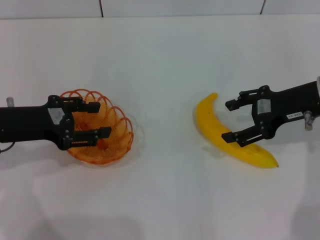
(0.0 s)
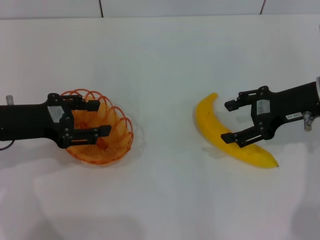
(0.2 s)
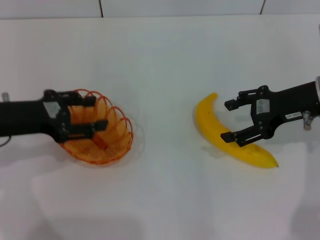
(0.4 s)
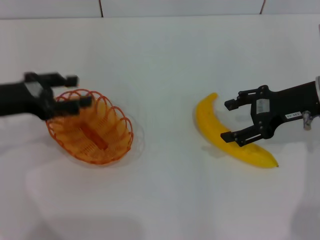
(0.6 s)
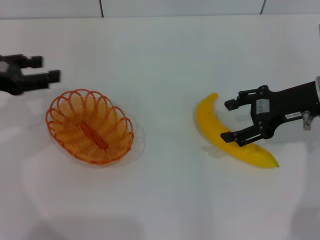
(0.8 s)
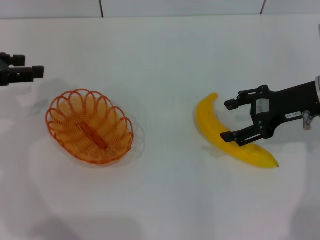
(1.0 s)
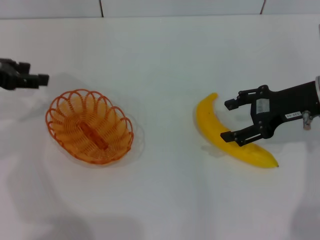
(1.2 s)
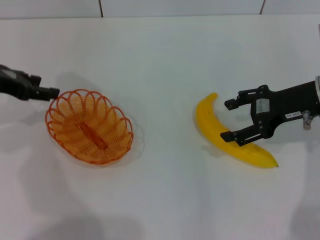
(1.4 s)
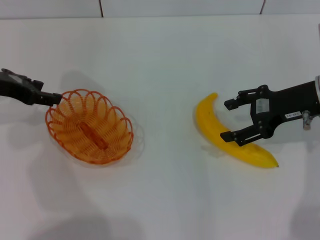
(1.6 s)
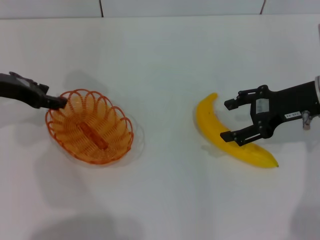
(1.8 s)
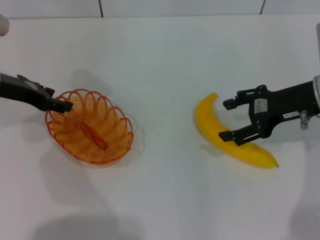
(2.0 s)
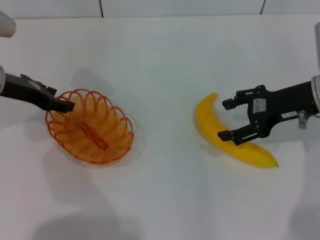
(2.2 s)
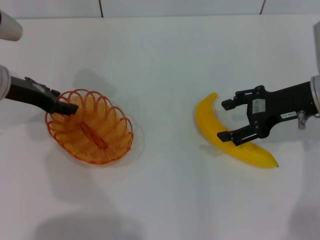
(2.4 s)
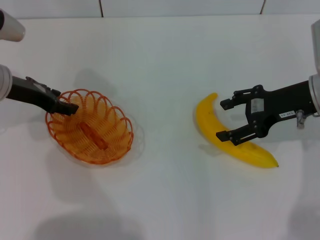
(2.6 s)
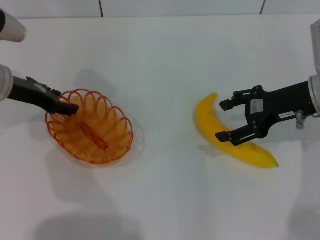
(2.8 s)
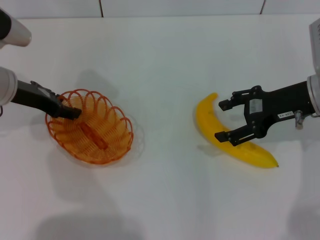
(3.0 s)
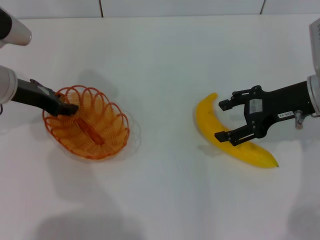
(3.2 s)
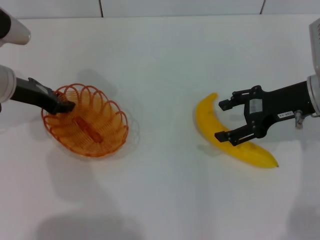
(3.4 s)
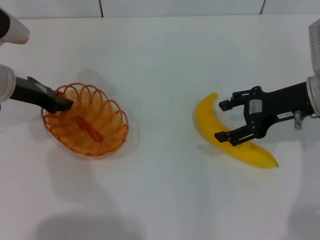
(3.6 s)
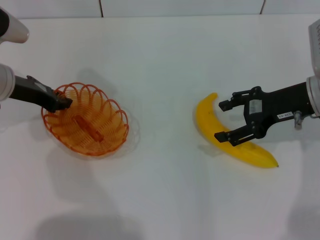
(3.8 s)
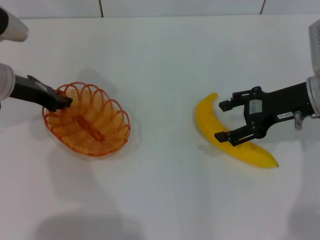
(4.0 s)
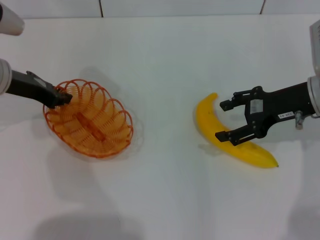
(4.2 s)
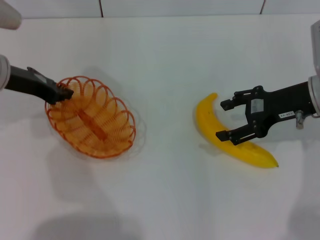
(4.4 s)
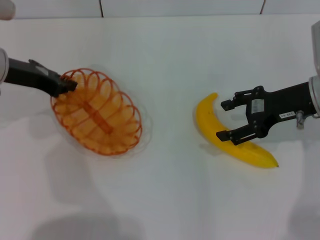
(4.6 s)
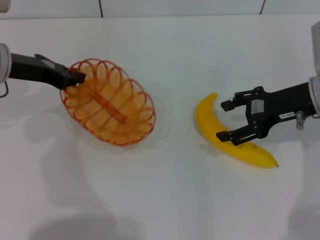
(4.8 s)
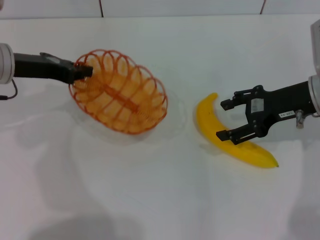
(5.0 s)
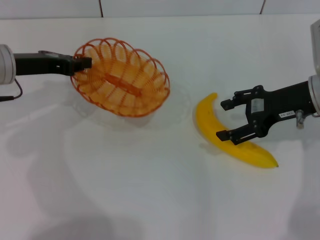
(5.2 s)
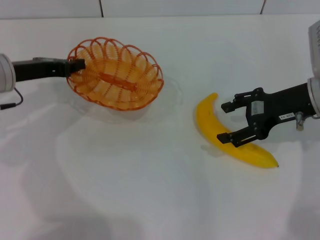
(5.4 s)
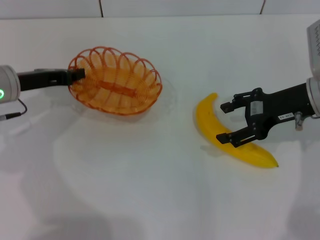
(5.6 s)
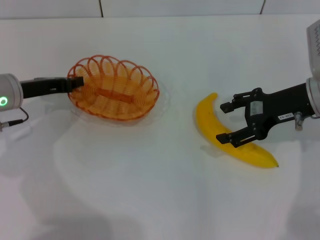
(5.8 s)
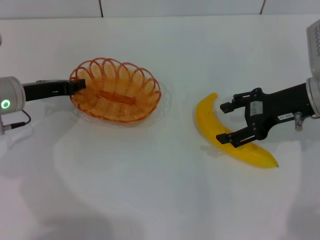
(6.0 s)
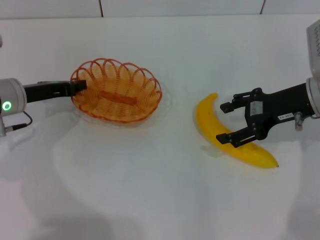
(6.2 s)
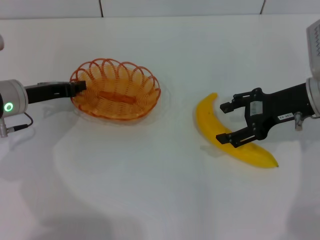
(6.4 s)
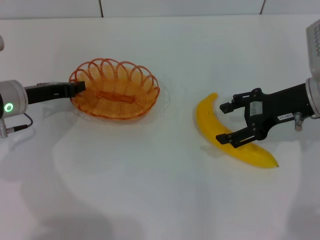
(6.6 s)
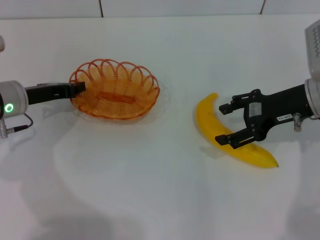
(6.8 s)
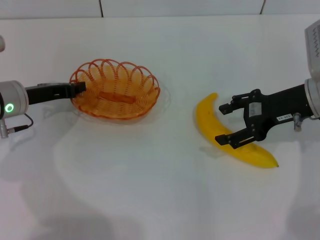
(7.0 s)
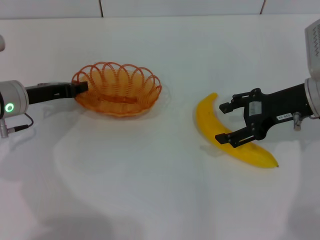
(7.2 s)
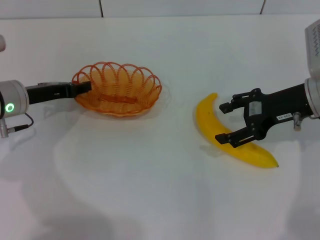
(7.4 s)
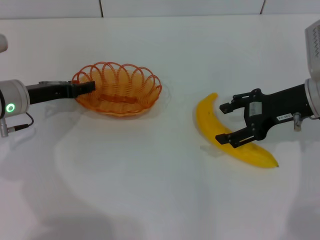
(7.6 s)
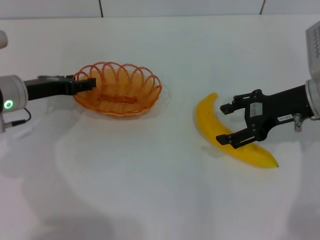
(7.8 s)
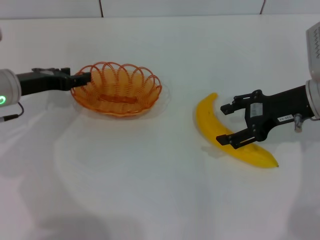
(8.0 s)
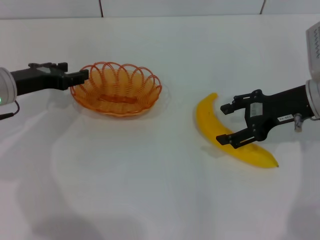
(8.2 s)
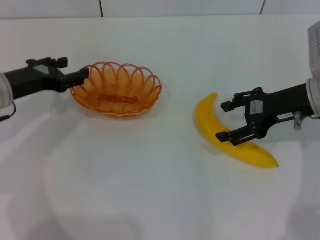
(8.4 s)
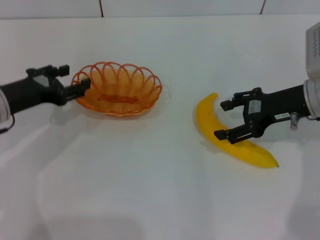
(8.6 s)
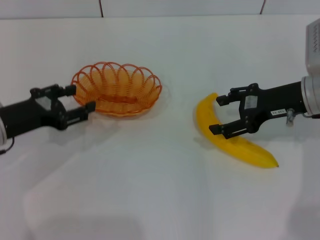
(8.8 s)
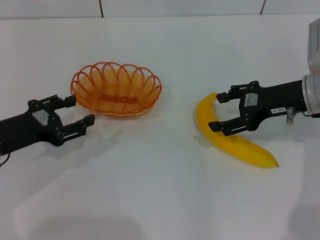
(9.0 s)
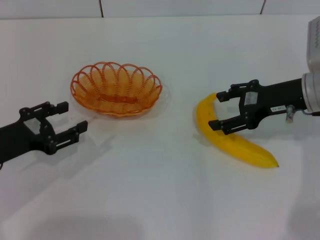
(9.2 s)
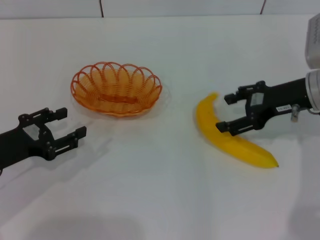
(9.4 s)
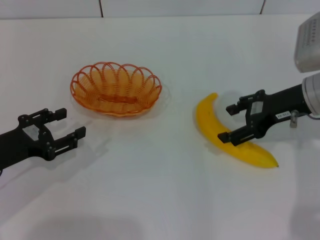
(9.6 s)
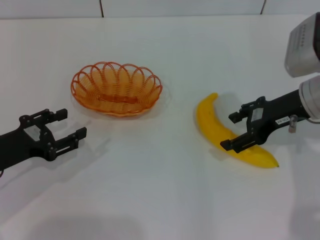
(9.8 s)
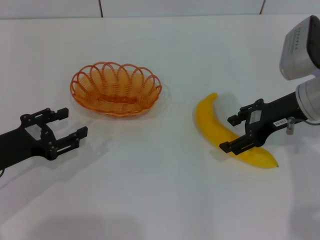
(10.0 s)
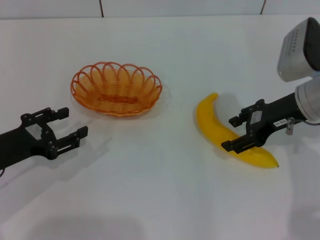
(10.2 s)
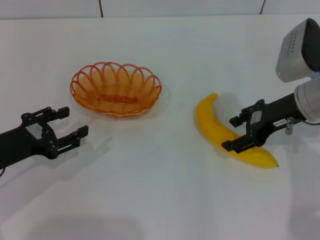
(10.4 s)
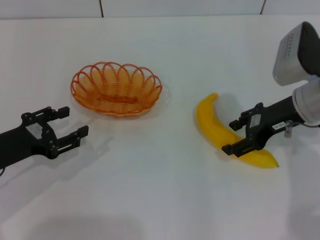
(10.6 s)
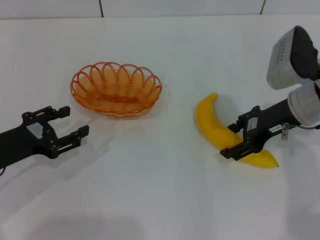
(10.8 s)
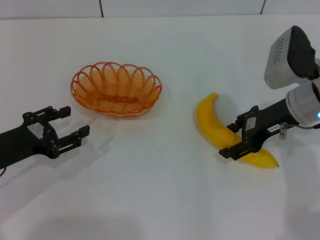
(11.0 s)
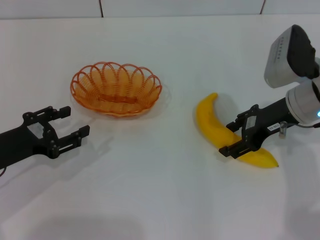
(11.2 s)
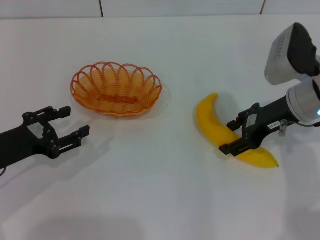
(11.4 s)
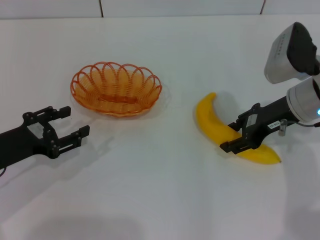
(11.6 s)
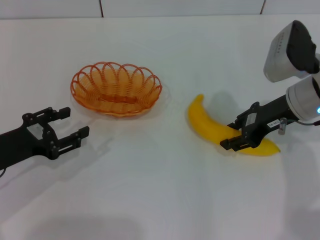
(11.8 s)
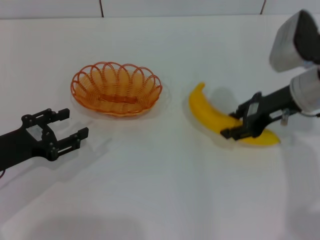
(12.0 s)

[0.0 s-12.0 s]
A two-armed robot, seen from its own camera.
Step, 0.0 to 4.8 s: Pick up the basket with the left gripper.
Step, 5.2 to 8.0 s: Place the basket in the center of view with the left gripper.
0.0 to 1.6 s: The left gripper is displaced forward by roughly 5 cm.
1.6 to 3.0 s: The left gripper changes place by roughly 5 cm.
3.0 to 4.4 s: The left gripper closes its fingers.
4.4 to 6.0 s: The left gripper heads downward, covering about 5 cm.
6.0 to 7.6 s: The left gripper opens its fingers.
7.6 to 9.0 s: The left gripper heads backward, covering about 10 cm, and opens.
9.0 to 10.4 s: The grippers stay close to where they were, moving slightly.
10.4 to 12.0 s: The right gripper closes.

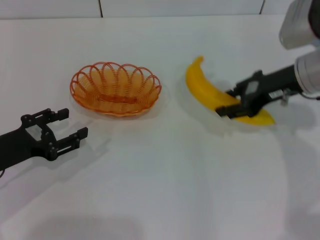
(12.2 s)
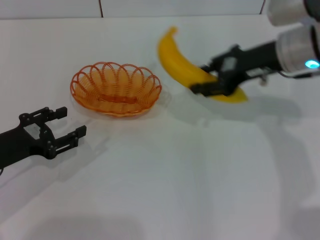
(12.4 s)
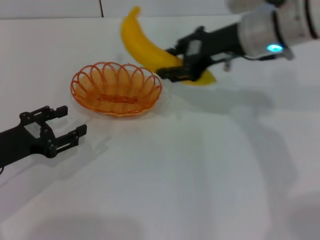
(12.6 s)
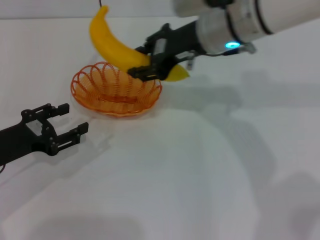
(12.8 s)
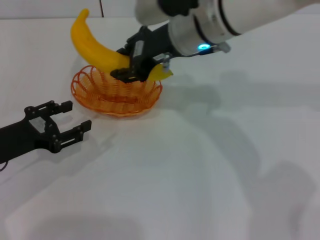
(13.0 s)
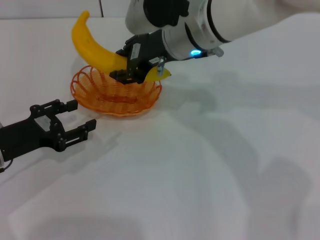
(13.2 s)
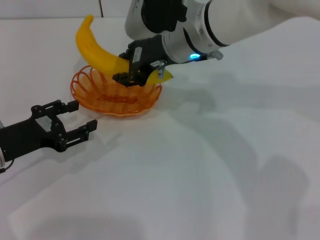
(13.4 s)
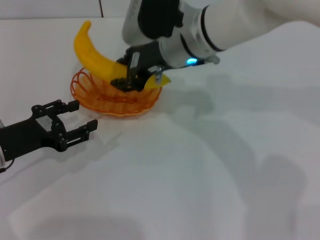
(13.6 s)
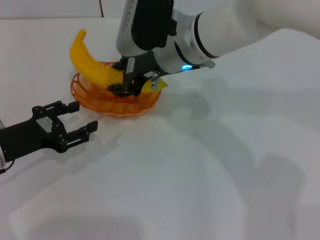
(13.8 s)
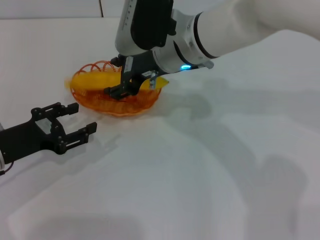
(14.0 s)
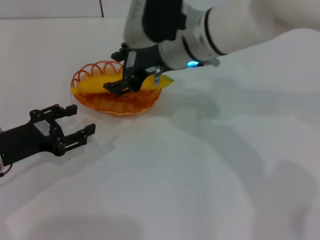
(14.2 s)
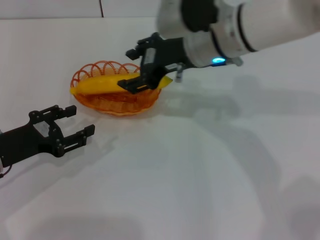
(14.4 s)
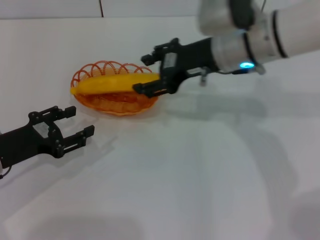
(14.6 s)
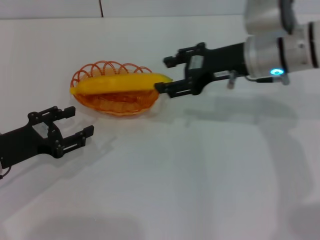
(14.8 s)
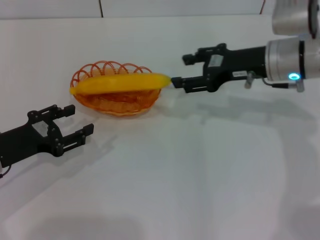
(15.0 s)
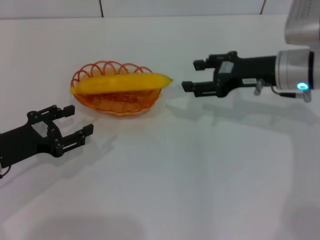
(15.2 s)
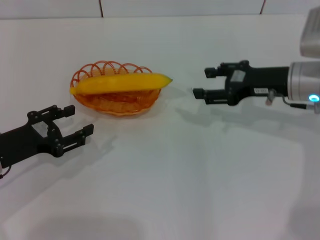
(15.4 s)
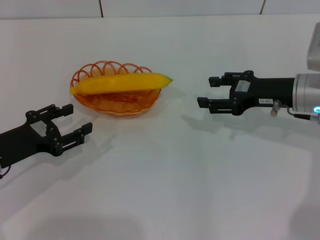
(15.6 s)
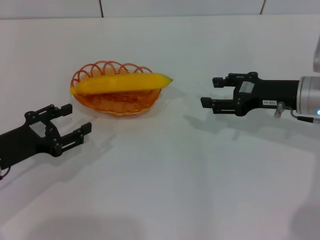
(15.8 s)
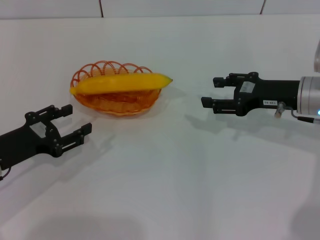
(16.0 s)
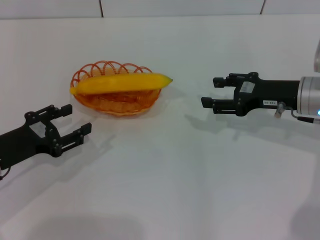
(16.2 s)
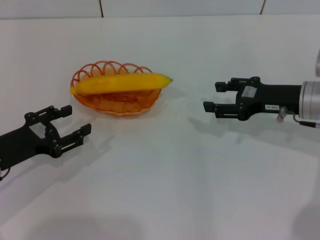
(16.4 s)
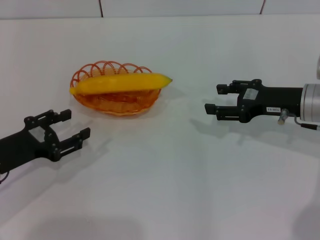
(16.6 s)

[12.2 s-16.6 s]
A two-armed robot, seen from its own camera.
Step, 12.4 to 14.4 s: Place the banana into the basket with the right gripper.
12.2 to 13.6 s: The right gripper is displaced to the left by approximately 20 cm.
13.6 to 15.2 s: The right gripper heads to the right, covering about 15 cm, and opens.
15.2 to 16.6 s: The right gripper changes place by approximately 5 cm.

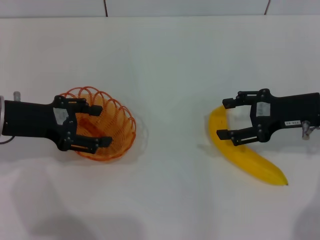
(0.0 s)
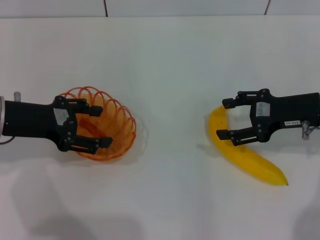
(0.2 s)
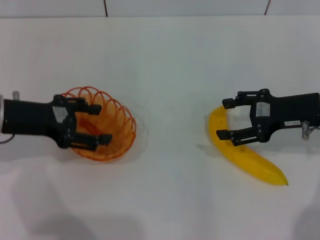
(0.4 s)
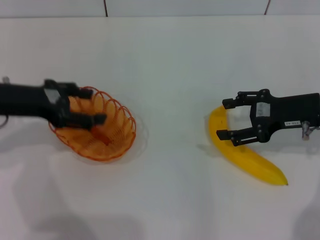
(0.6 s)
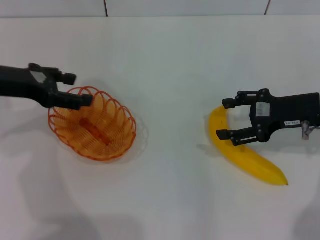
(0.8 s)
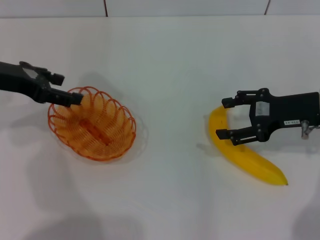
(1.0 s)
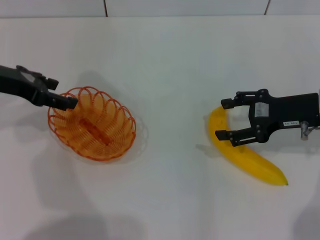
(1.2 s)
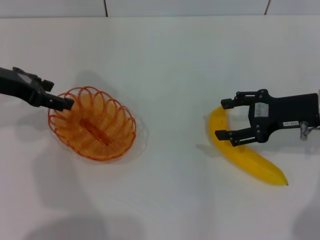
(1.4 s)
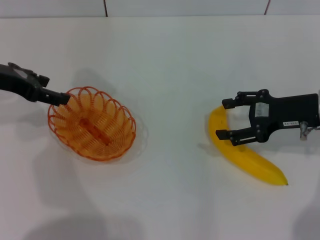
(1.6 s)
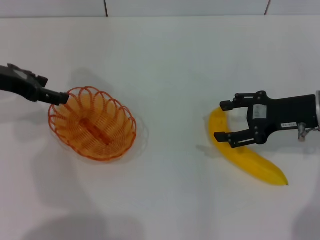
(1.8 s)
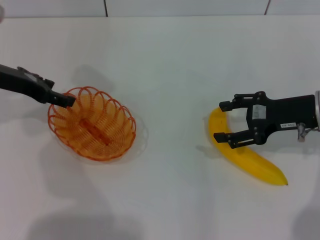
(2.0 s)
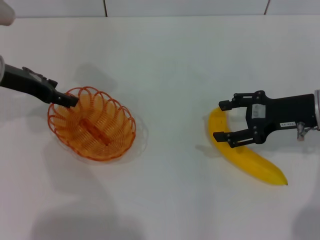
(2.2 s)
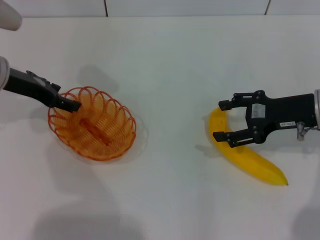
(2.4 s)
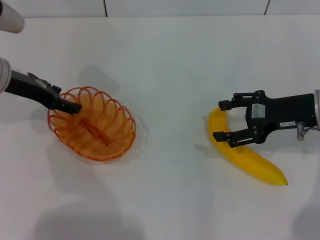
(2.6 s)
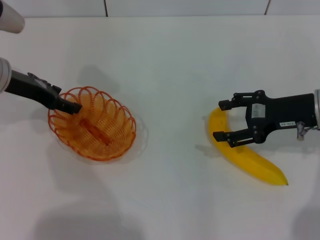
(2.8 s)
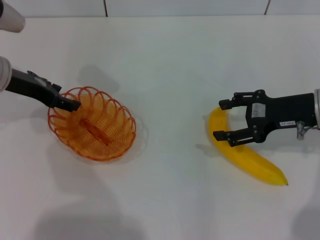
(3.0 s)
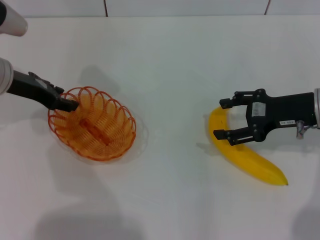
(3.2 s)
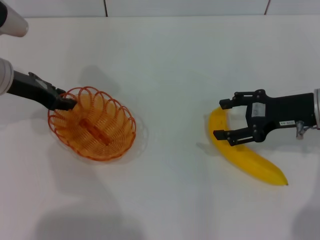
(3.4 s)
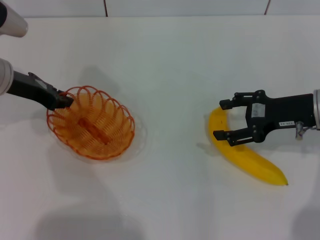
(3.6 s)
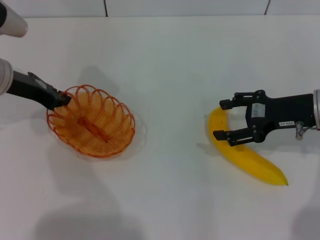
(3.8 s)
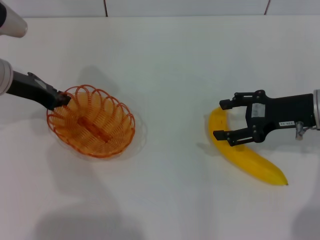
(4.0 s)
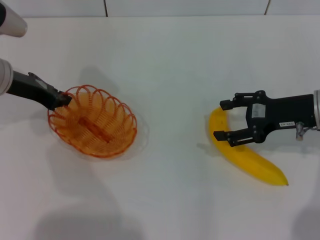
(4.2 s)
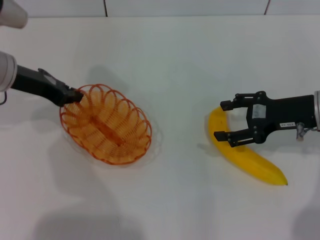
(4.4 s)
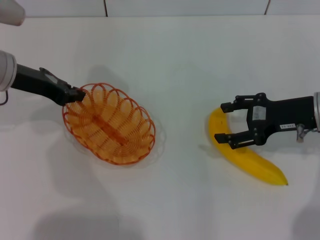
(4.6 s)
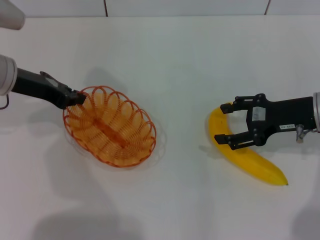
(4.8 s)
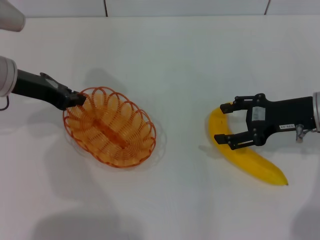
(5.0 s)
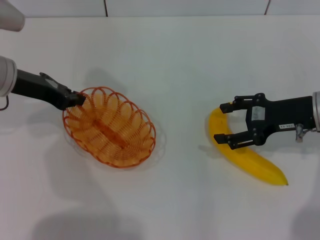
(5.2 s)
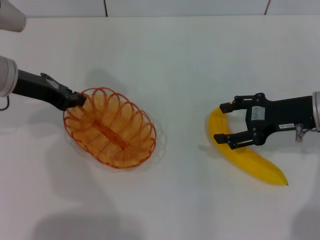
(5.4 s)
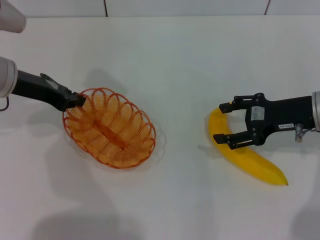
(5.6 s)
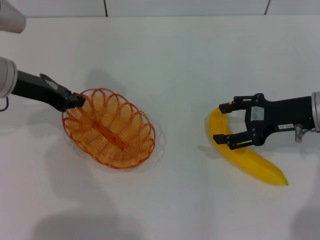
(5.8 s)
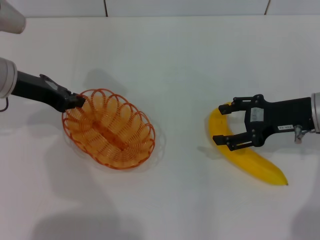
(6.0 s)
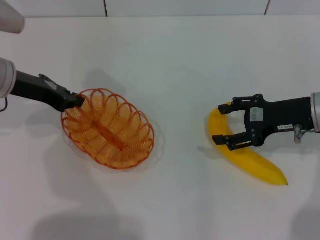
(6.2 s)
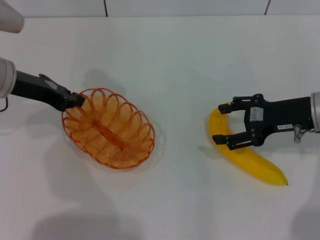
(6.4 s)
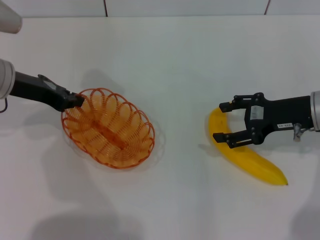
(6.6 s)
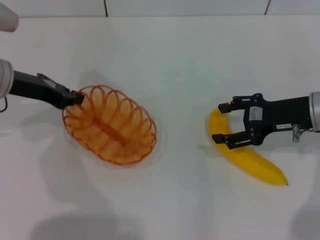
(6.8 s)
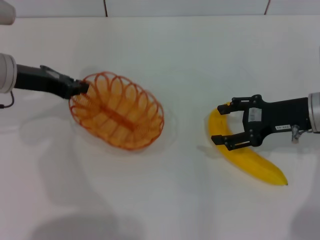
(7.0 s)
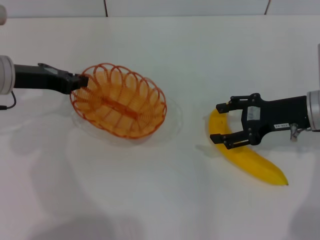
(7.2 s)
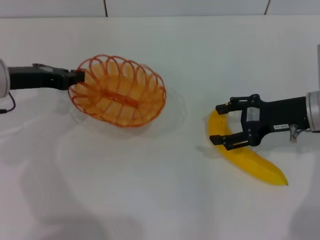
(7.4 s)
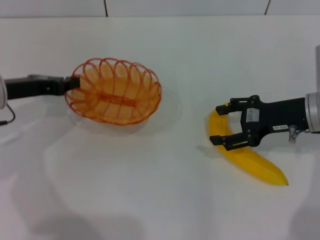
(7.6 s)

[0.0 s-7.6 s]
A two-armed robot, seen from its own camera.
Step, 0.0 to 4.2 s: Pick up the basket with the left gripper.
0.0 to 1.6 s: The left gripper heads forward, covering roughly 5 cm.
1.6 to 3.0 s: The left gripper changes place by about 5 cm.
3.0 to 4.6 s: The left gripper closes.
4.6 to 6.0 s: Both grippers stay about where they are.
6.0 to 7.6 s: The left gripper moves some 5 cm.
